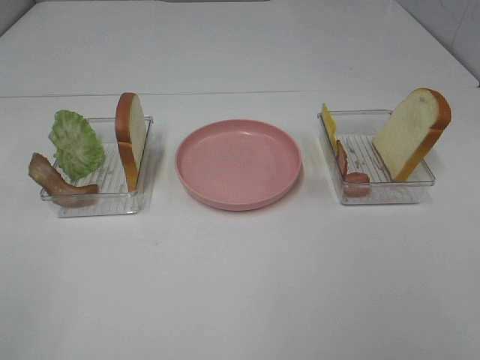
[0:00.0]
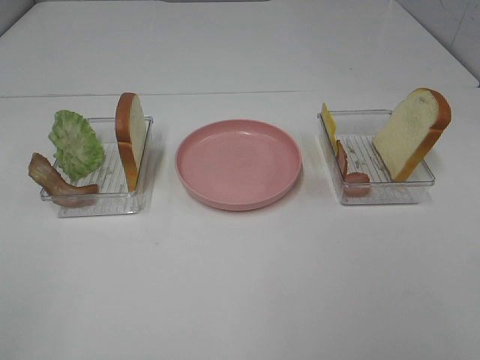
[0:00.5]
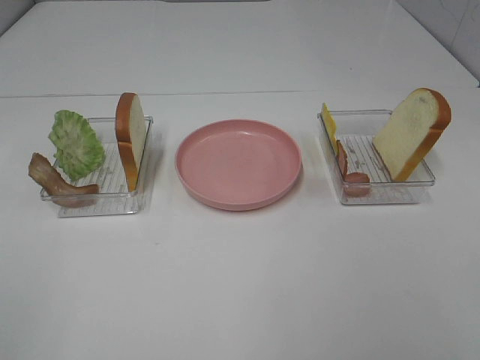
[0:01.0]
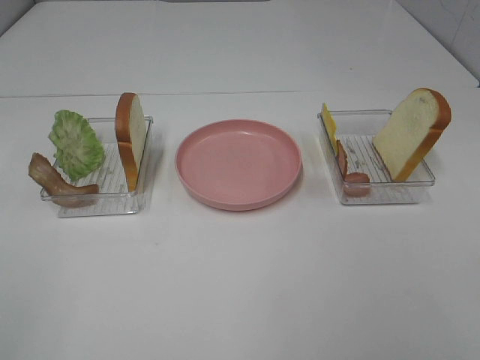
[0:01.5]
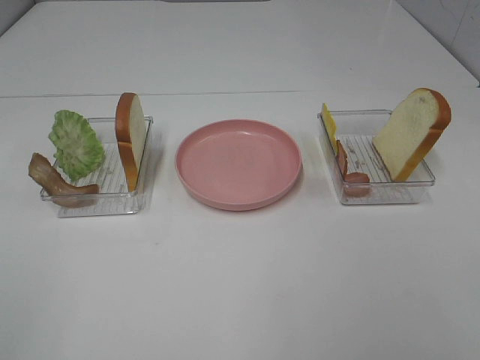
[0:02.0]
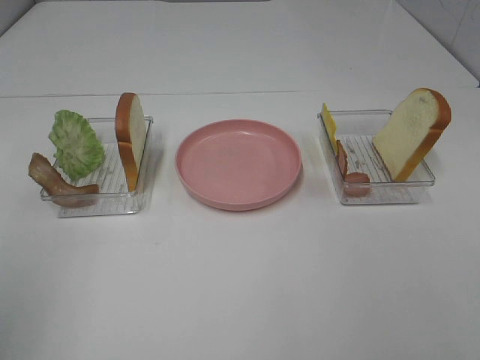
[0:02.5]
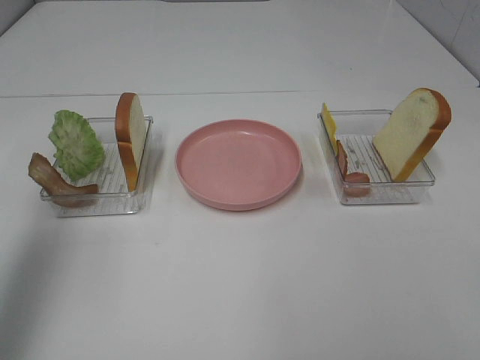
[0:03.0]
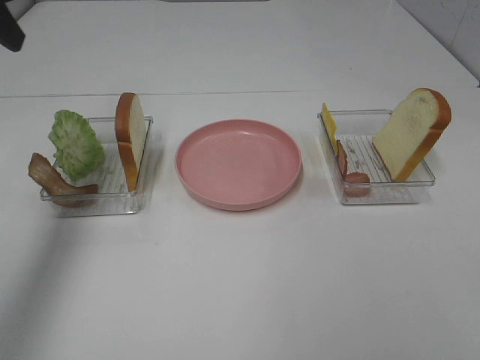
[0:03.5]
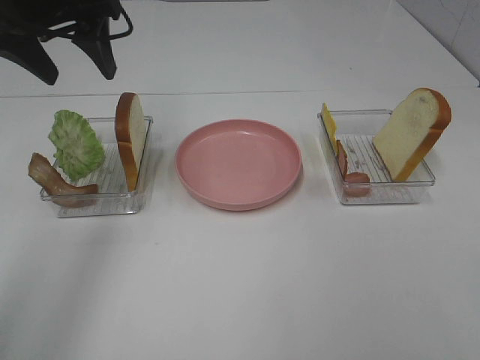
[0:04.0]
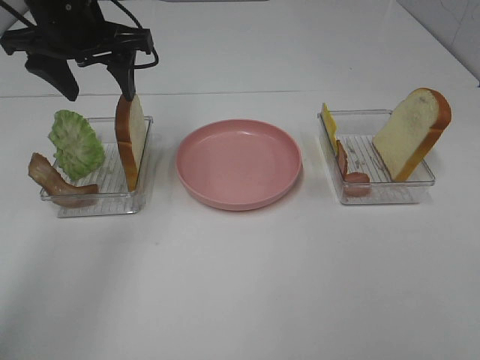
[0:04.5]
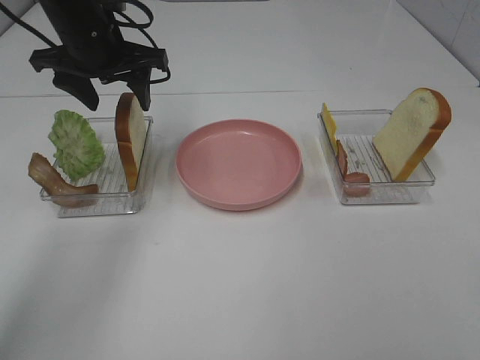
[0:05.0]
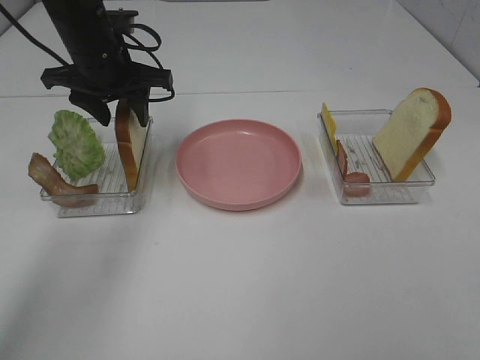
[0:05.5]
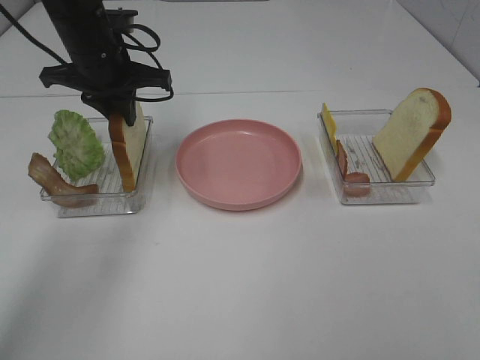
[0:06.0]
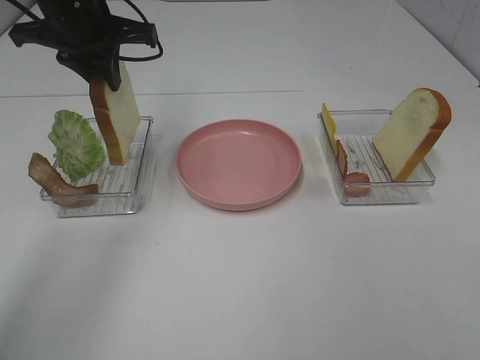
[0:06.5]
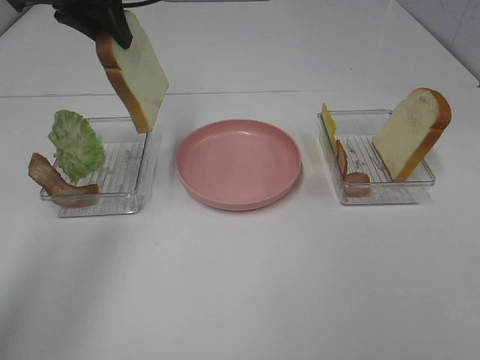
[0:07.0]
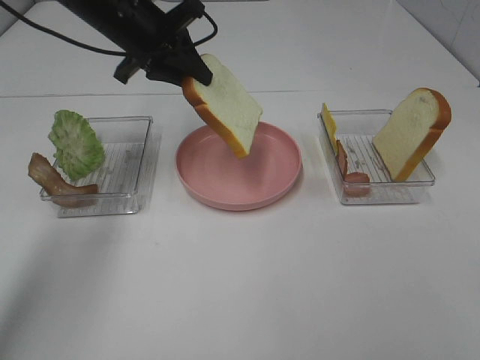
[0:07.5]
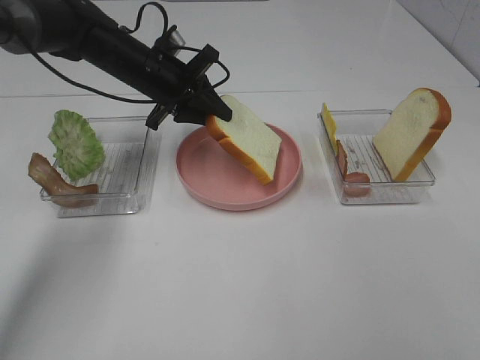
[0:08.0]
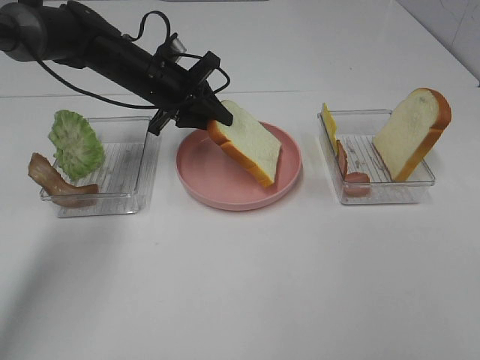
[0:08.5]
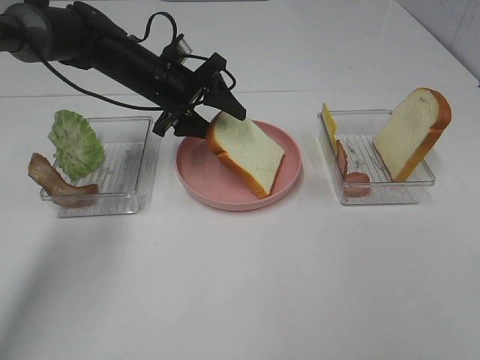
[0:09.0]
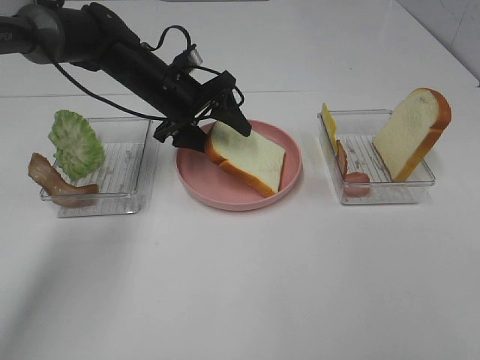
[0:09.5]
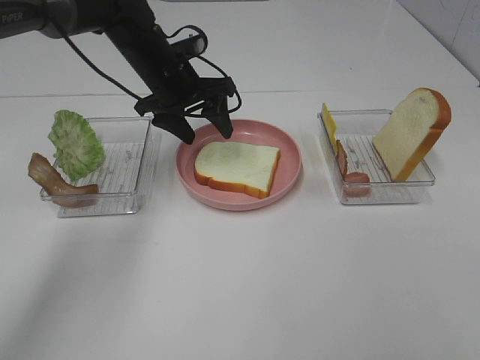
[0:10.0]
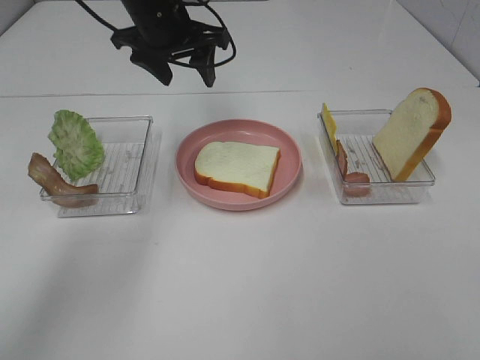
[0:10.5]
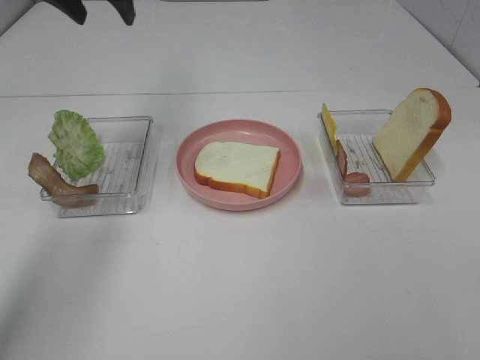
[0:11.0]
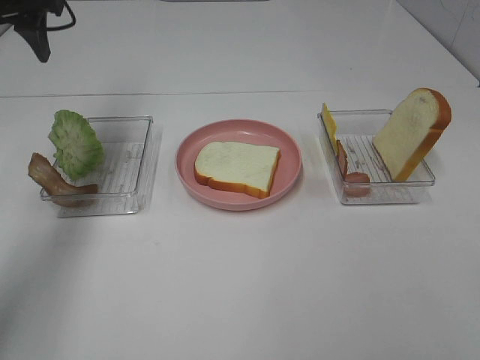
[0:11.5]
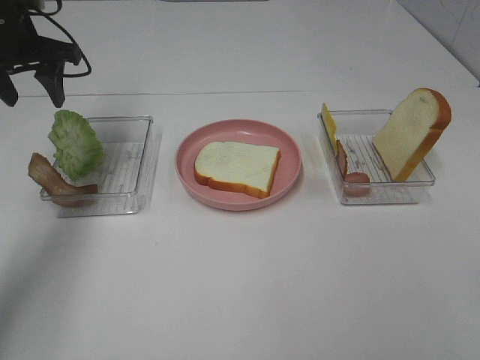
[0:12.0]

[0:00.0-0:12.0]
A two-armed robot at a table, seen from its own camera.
Task of the whole recording: Make sandwiches.
Step, 0:00.0 to 0:05.5: Left hand:grab the bread slice.
Step, 0:06.0 to 0:10.0: Left hand:place the bread slice on the plate.
0:00.0 to 0:02.0: Both grippers stay about where they are.
0:02.0 to 0:04.0: The left gripper shifts roughly 40 cm forward.
0:04.0 to 0:06.0: The left gripper goes about 10 cm downward and forward, and closes.
0:06.0 to 0:08.0: The left gripper reaches about 10 cm upward, then returns.
0:08.0 to 0:10.0: The left gripper opens.
0:10.0 to 0:12.0: The left gripper heads to the left and upward, covering about 20 cm.

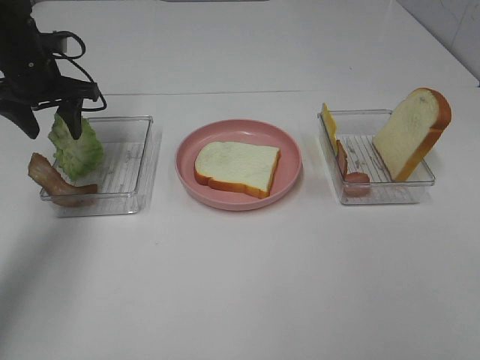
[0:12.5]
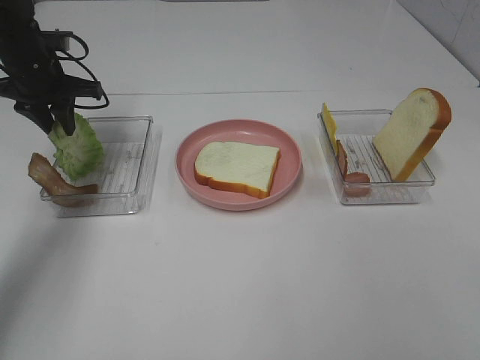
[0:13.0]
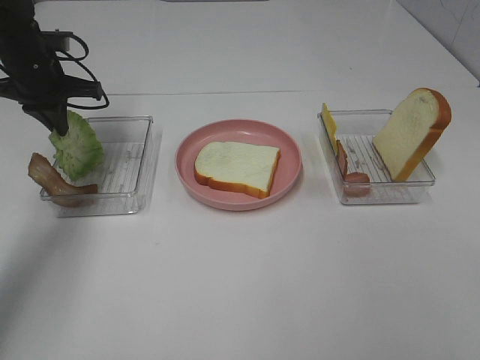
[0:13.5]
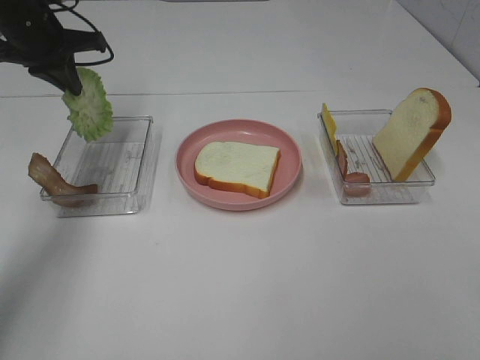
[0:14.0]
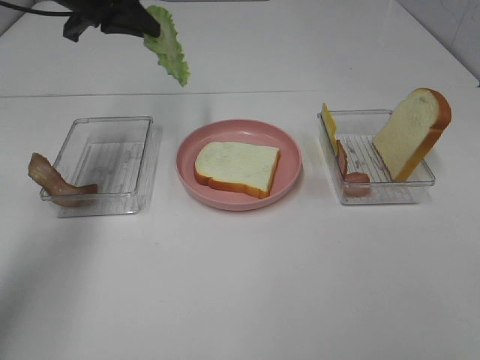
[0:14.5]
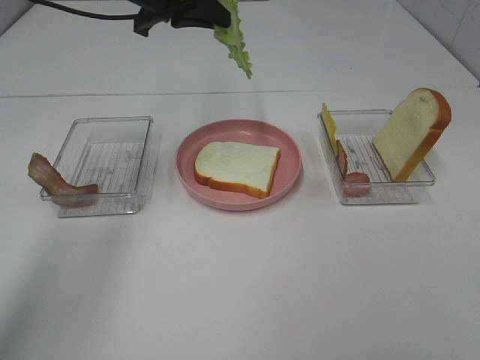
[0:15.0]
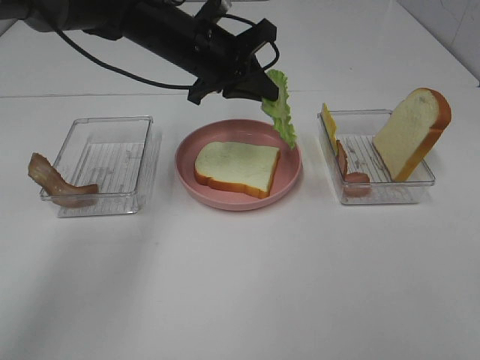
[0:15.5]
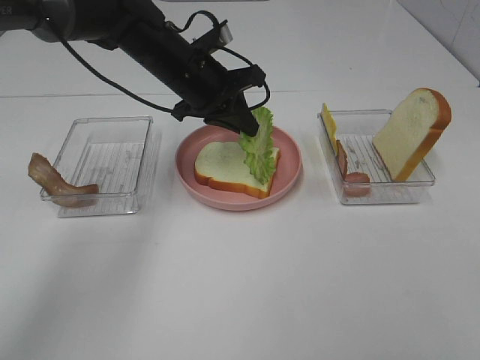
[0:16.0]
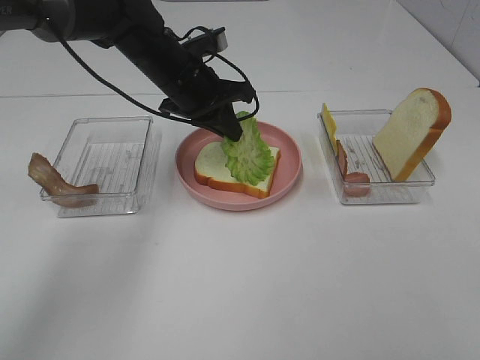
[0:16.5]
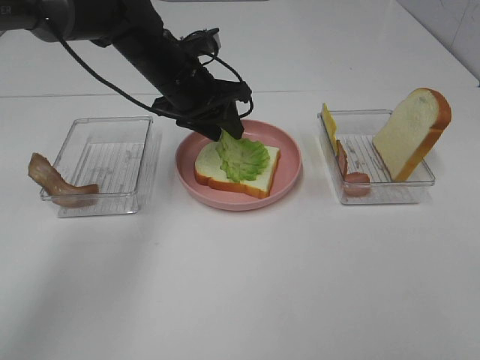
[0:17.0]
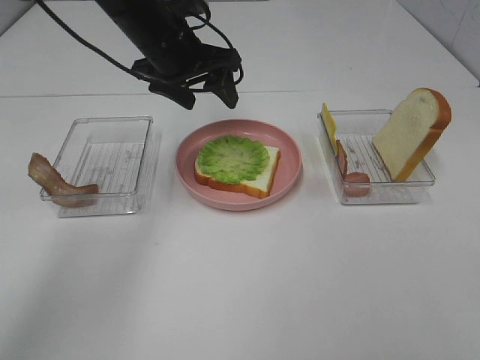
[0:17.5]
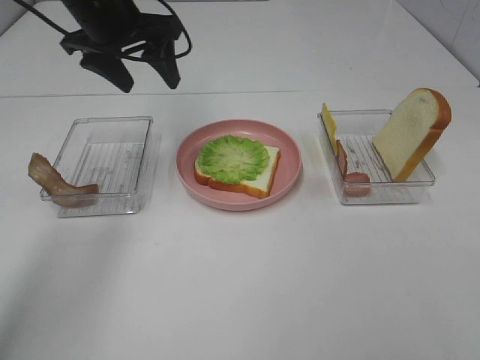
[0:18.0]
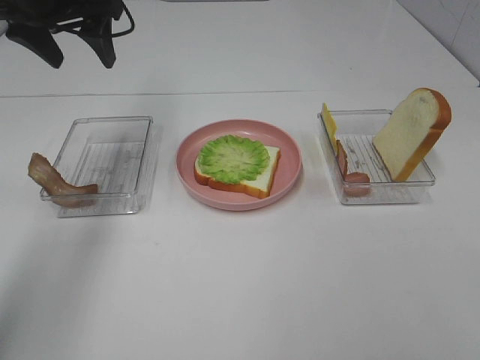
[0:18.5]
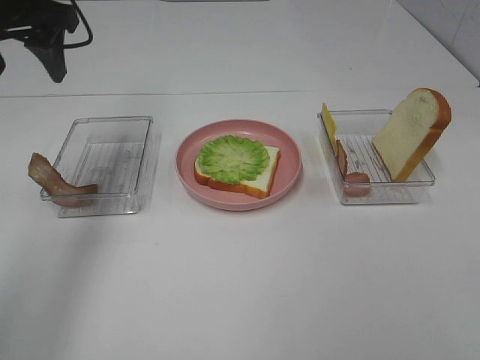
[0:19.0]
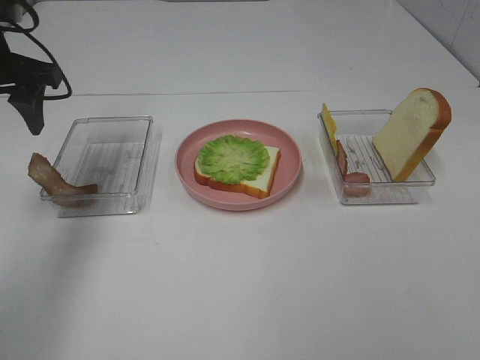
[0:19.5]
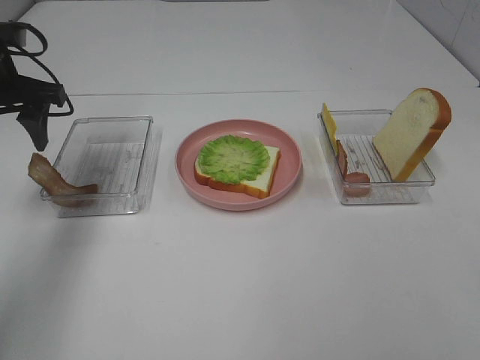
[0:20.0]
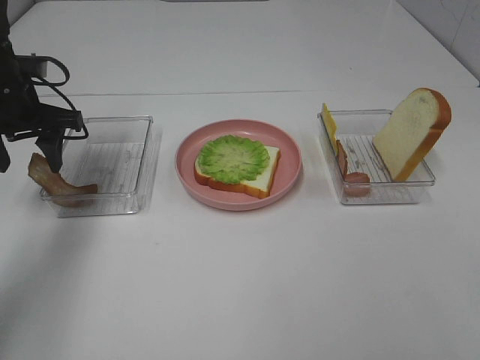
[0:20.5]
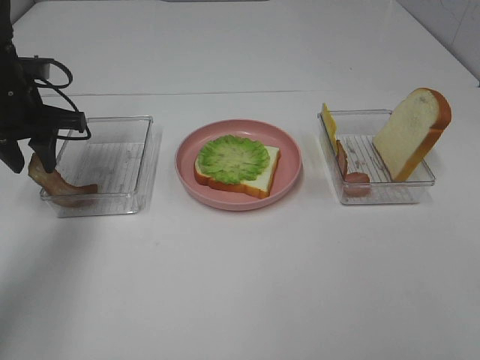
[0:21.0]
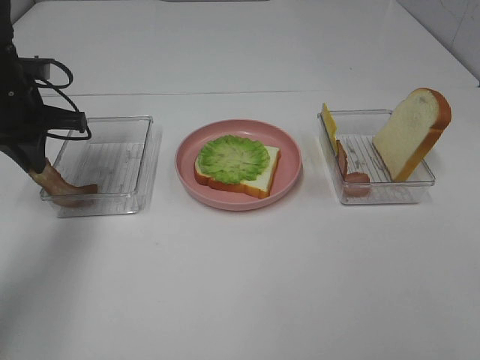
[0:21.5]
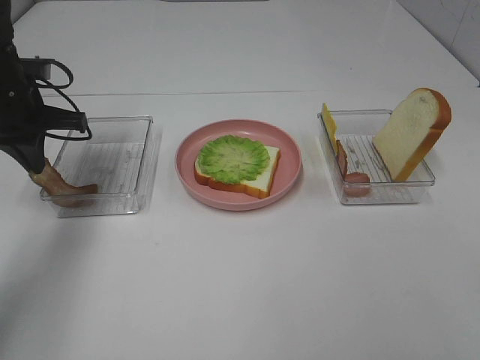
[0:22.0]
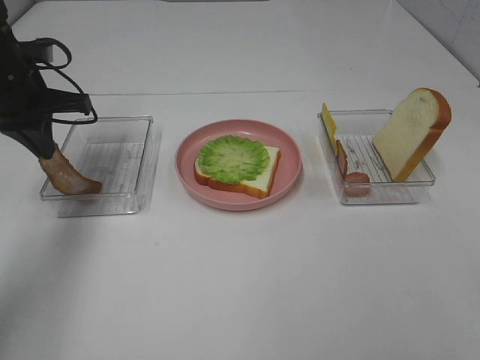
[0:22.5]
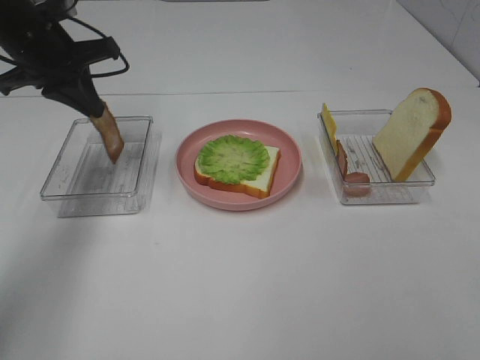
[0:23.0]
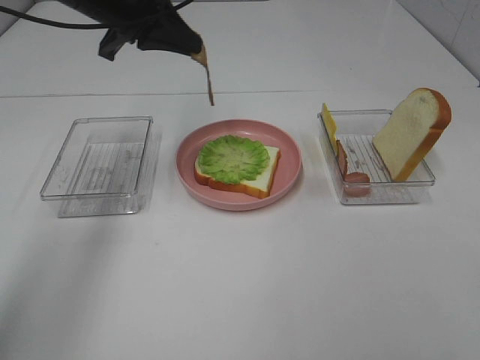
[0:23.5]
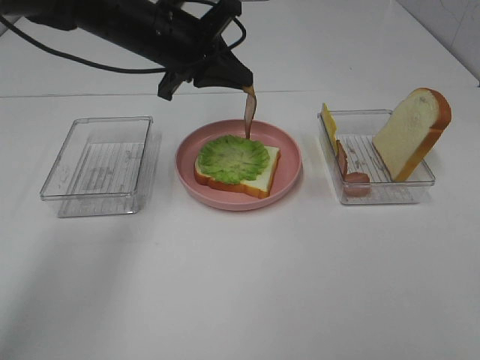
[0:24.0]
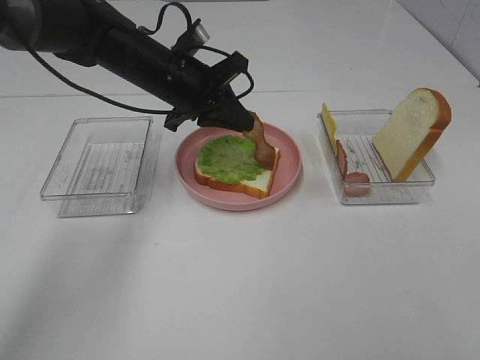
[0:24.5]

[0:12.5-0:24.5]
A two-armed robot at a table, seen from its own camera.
Task of the whole recording: Make sandwiches.
Step, 0:13.5 to 0:17.0: Left hand:place the lettuce slice on the bread slice.
Step, 0:17.5 to 0:21.5: Left hand:grab the bacon.
0:12.5 to 0:14.5: The left gripper moves upward and to the right, about 15 cm, and closes up.
0:14.5 to 0:16.5: The left gripper moves to the right and downward, about 15 cm.
0:16.5 to 0:18.5: The left gripper moves to the left and upward, approximately 20 cm, and opens.
0:18.5 to 0:20.5: The left gripper is displaced downward and to the left by roughly 15 cm.
0:20.5 to 0:22.5: The left gripper closes up.
0:22.5 to 0:24.5: The left gripper is displaced to the right by about 15 cm.

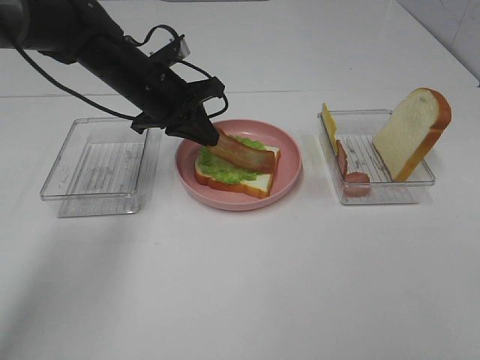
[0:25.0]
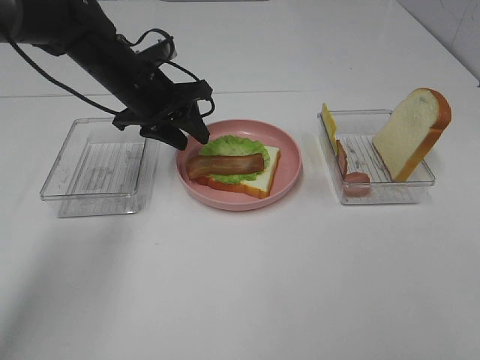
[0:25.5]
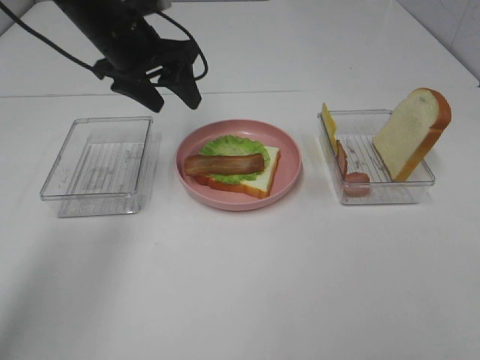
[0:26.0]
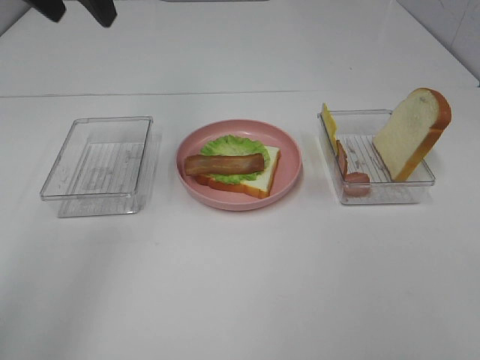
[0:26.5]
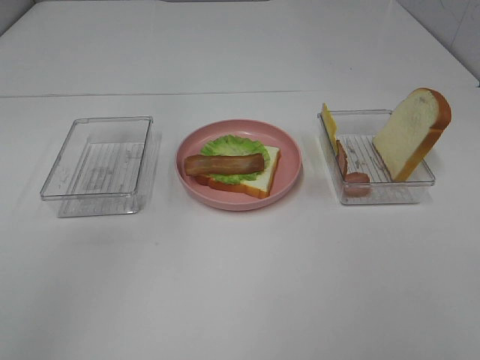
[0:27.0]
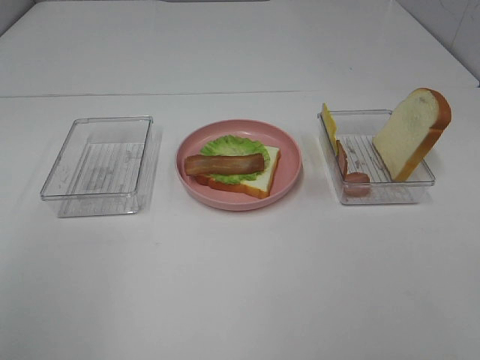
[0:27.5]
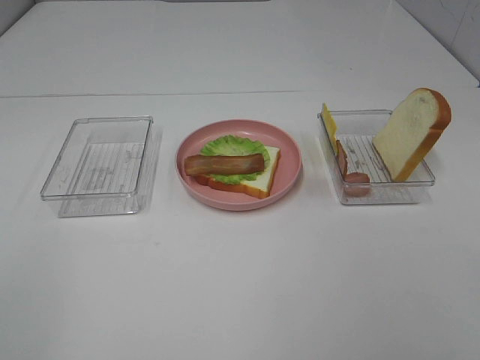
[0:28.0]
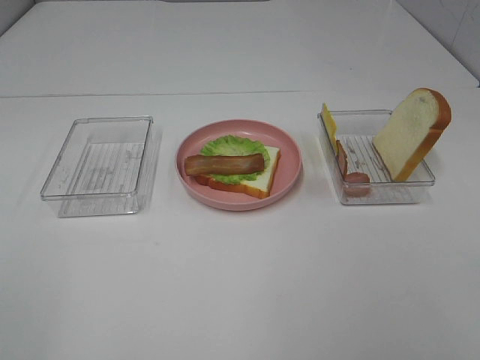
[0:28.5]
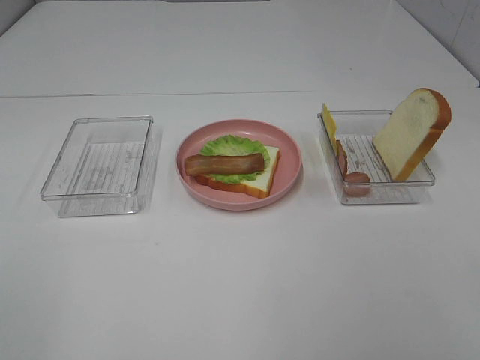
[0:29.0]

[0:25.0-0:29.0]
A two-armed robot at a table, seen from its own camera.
Task of the whole recording: Make sandwiches.
0:25.0 to 0:27.0: The left gripper is displaced upward and backward by approximately 30 cm, and opens its fingers.
0:27.0 to 0:29.0: The left gripper moves backward and downward, about 30 cm.
